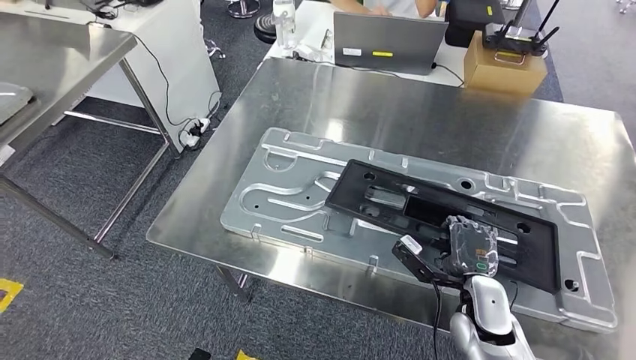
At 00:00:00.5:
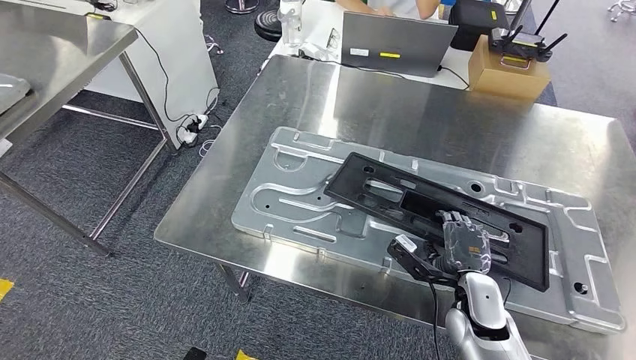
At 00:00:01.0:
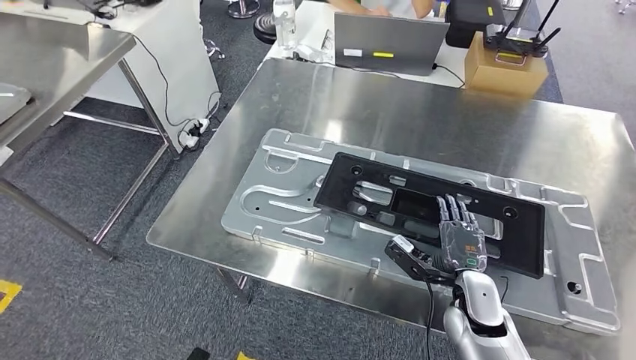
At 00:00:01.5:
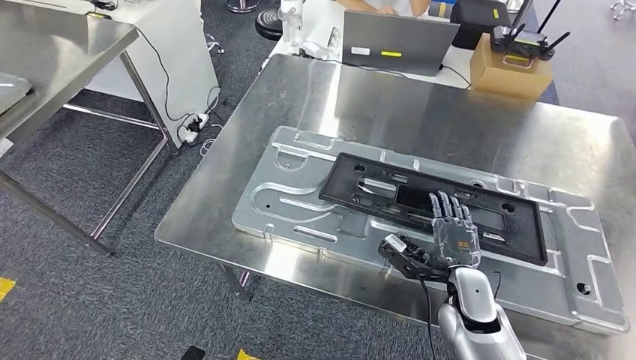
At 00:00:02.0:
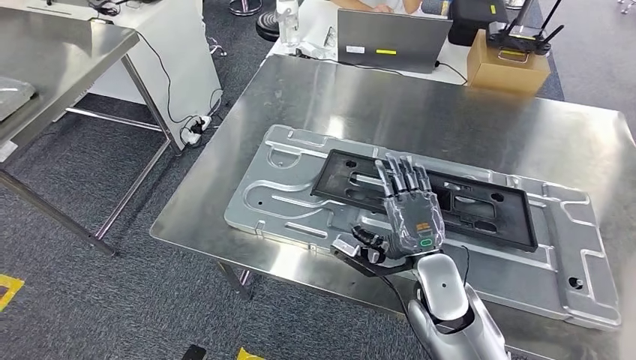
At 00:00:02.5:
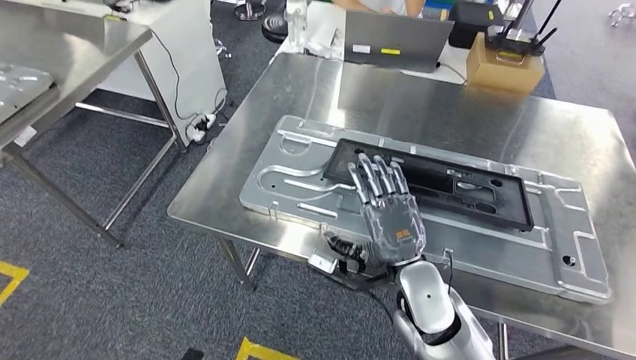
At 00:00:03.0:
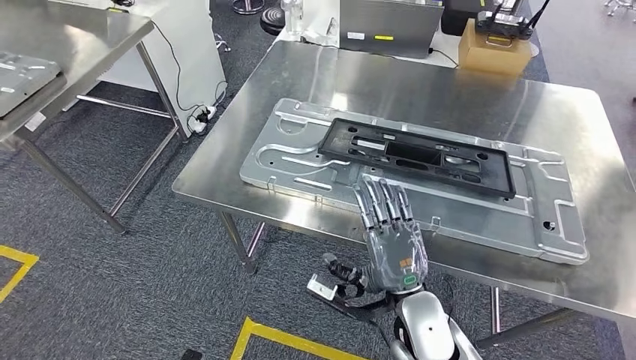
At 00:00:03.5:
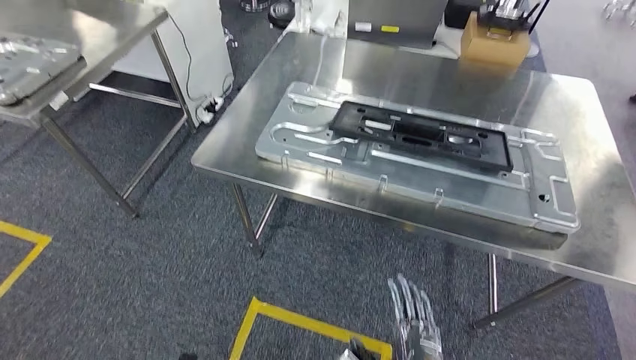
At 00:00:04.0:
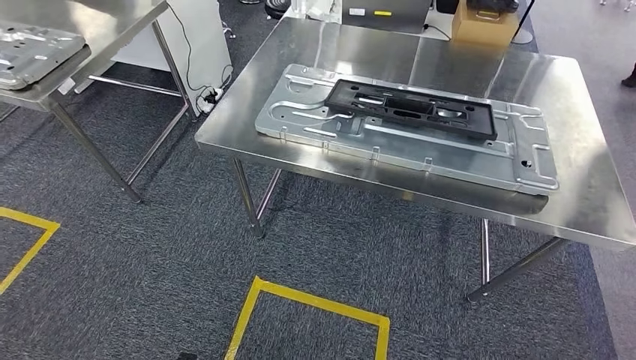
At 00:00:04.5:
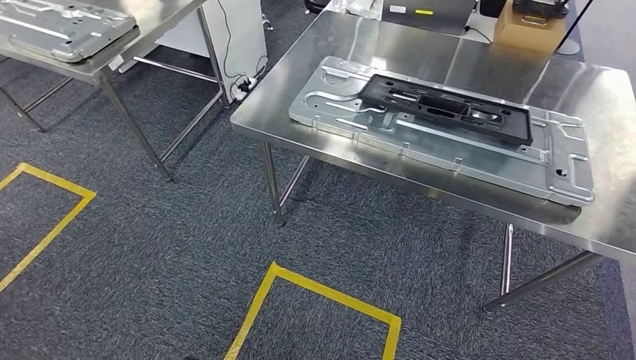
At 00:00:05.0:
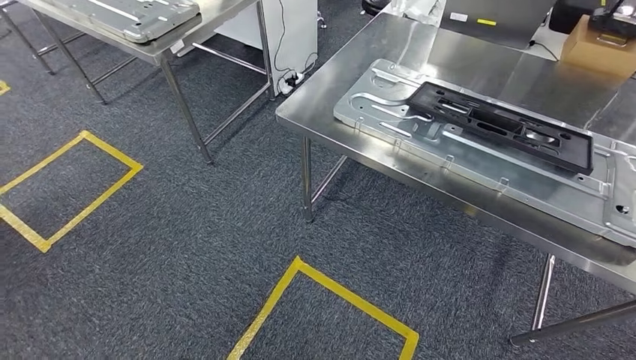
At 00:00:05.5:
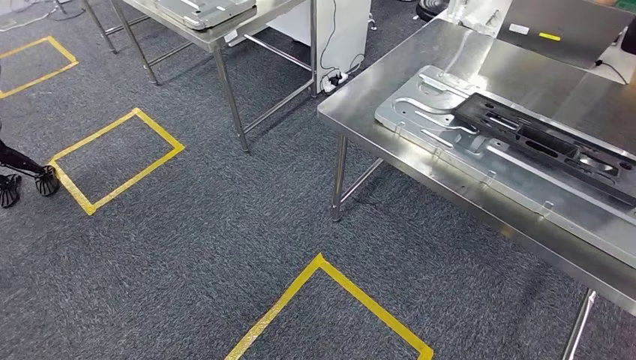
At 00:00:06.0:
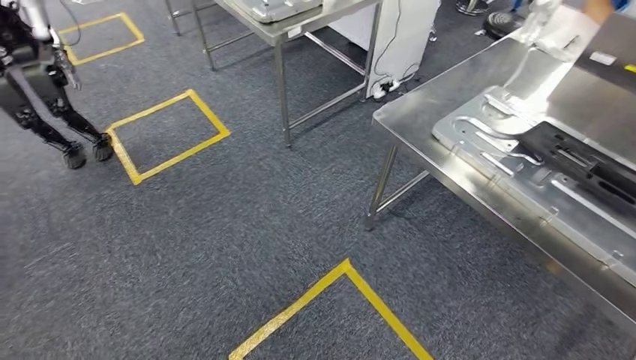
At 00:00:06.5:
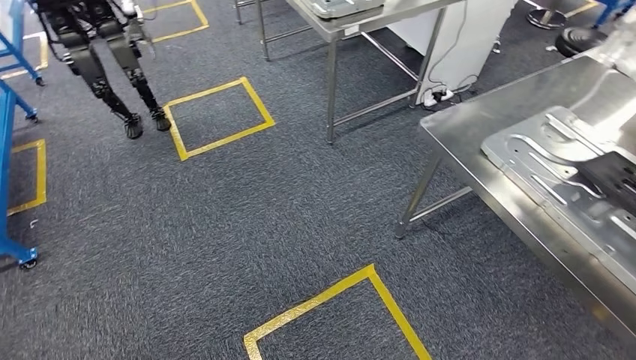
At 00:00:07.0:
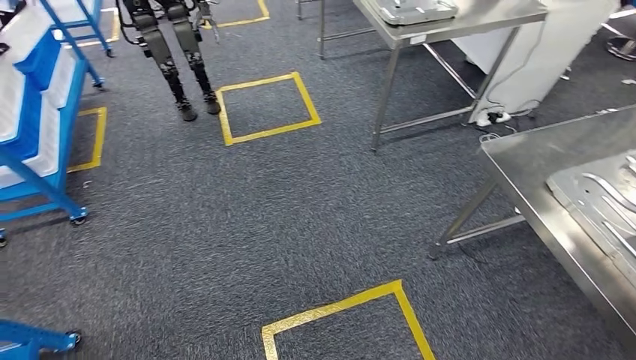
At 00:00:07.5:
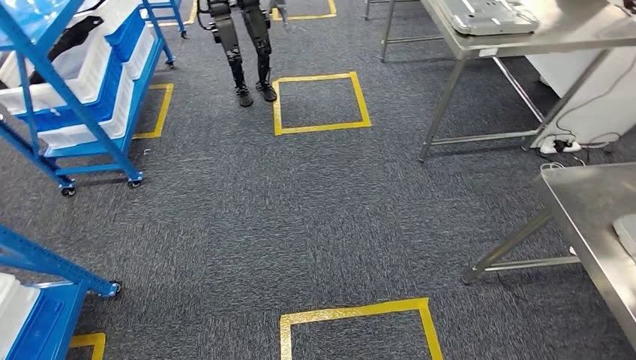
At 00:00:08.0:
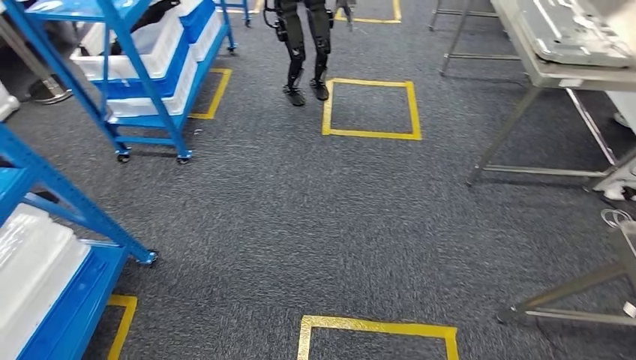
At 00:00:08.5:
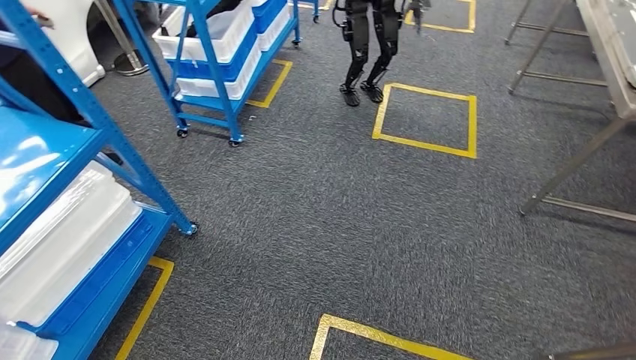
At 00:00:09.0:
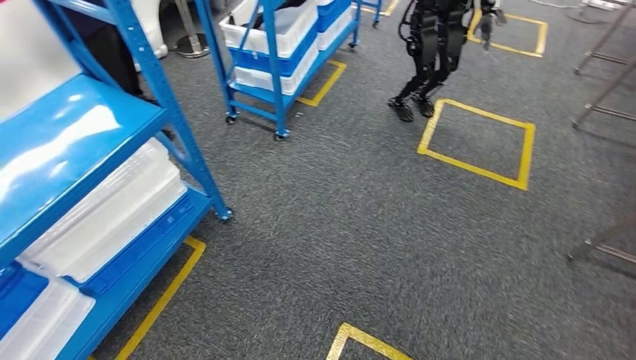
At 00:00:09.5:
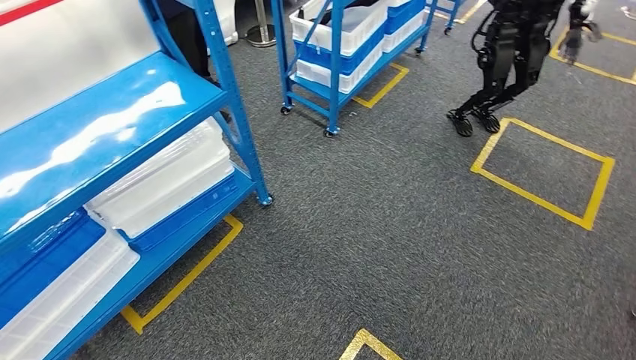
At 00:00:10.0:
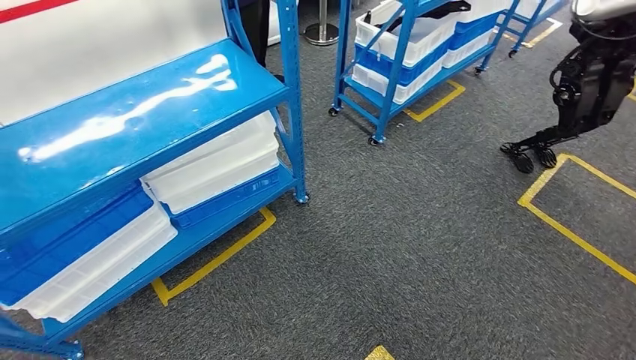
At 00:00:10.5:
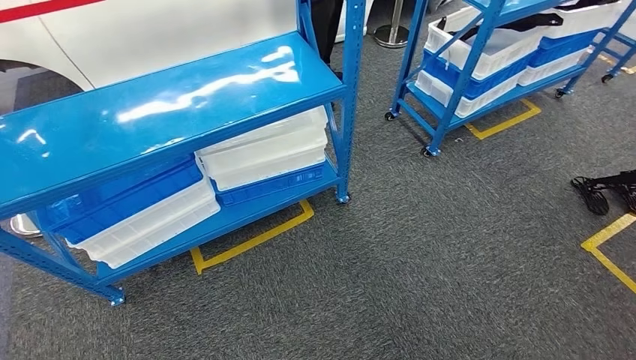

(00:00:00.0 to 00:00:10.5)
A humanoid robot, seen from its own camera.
Step, 00:00:00.0 - 00:00:02.5: Insert the large material into the corresponding slot on the workbench.

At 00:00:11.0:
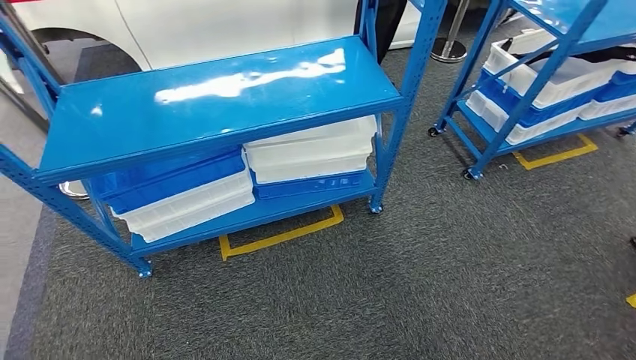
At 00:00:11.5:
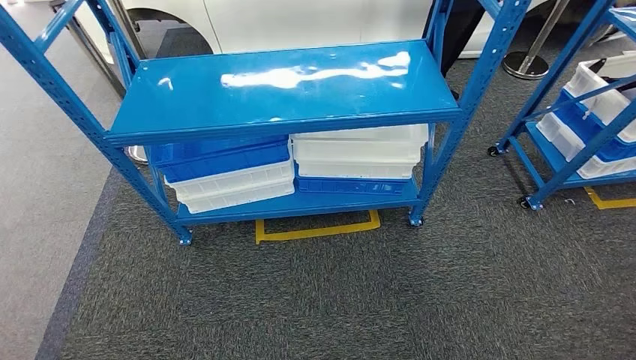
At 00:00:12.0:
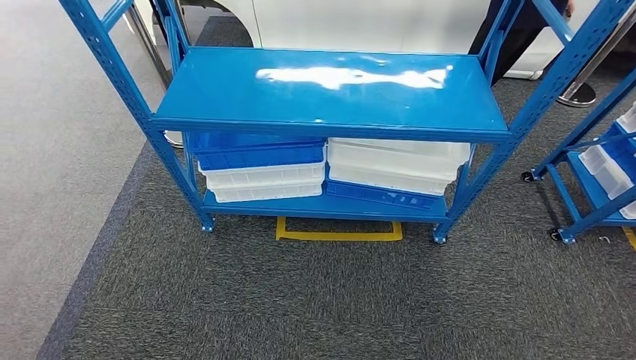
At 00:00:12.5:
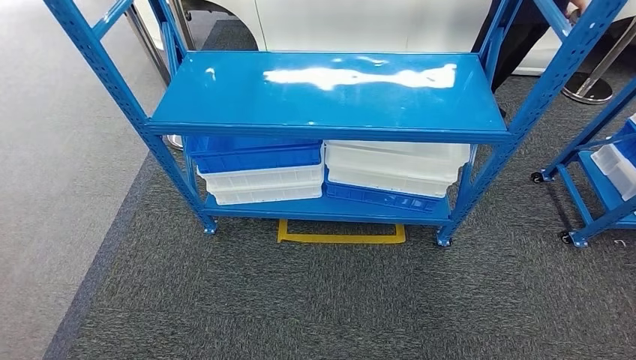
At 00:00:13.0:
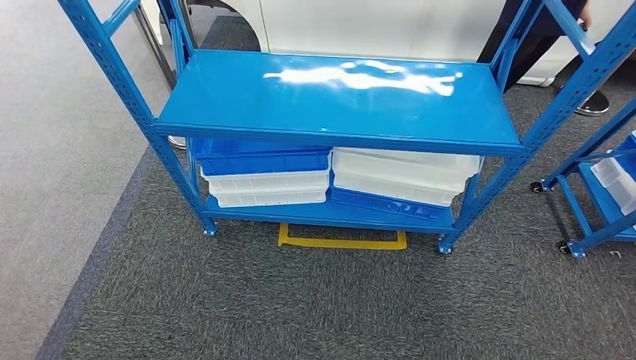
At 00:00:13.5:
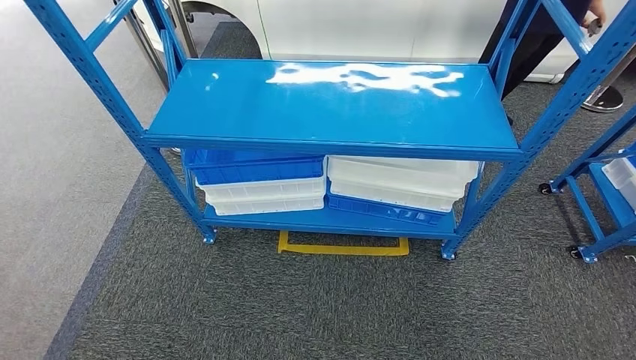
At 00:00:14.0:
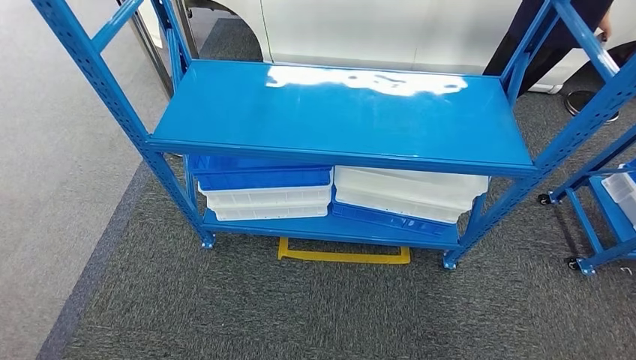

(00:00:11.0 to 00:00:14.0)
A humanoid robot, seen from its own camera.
Step, 00:00:11.0 - 00:00:14.0: Move to the initial position of the shelf.
